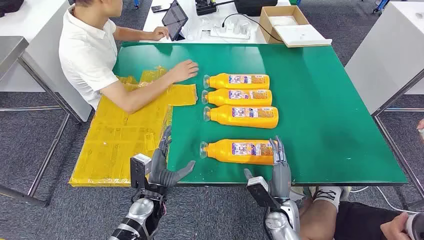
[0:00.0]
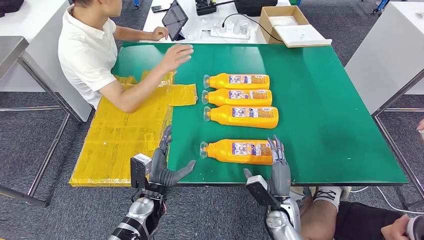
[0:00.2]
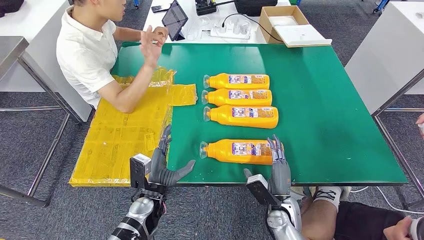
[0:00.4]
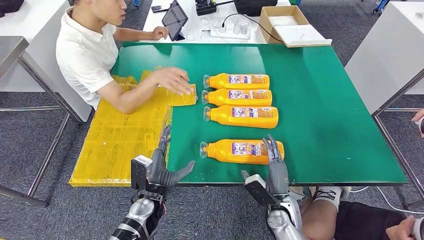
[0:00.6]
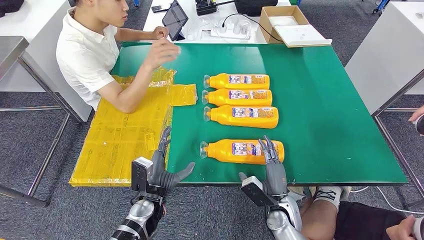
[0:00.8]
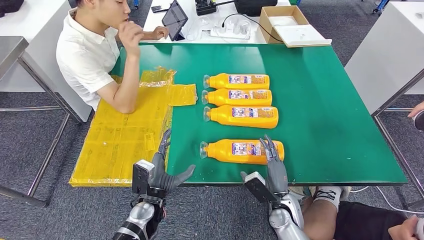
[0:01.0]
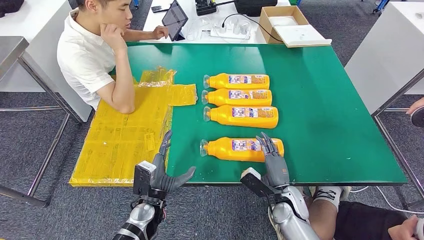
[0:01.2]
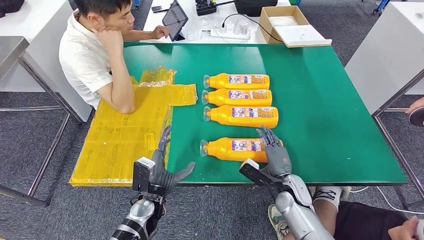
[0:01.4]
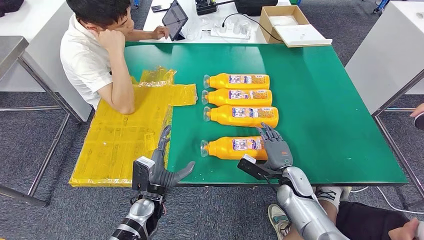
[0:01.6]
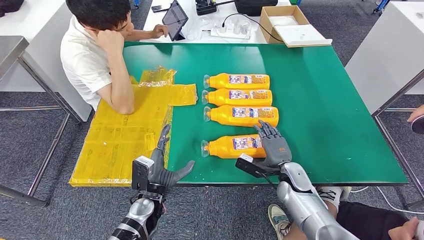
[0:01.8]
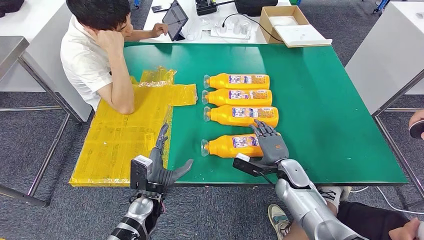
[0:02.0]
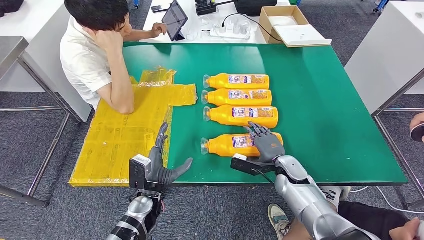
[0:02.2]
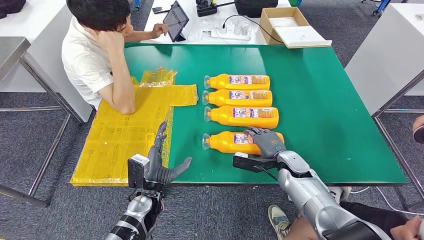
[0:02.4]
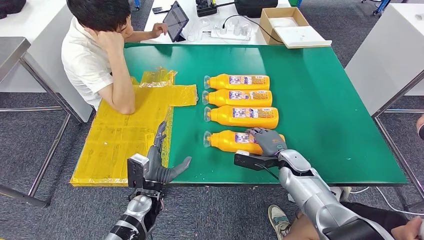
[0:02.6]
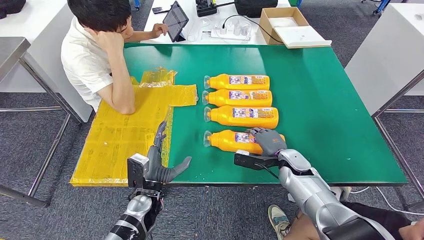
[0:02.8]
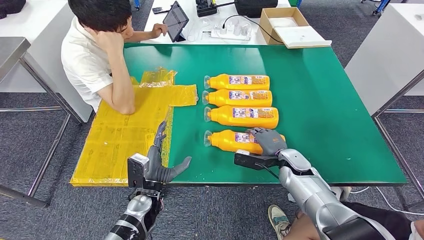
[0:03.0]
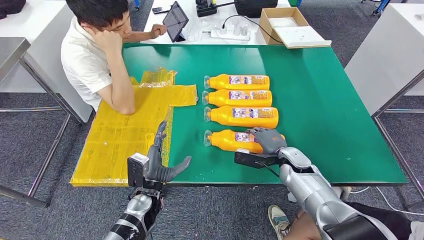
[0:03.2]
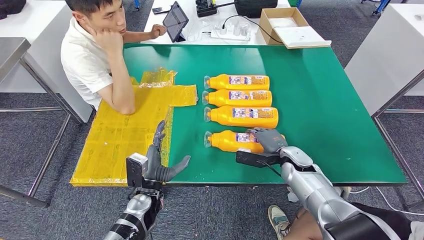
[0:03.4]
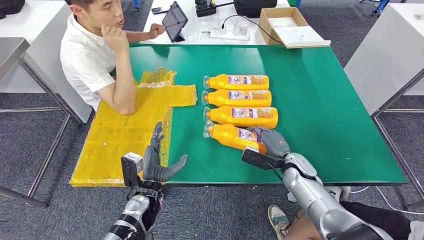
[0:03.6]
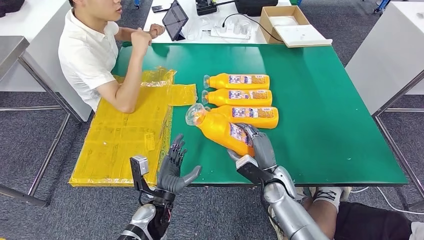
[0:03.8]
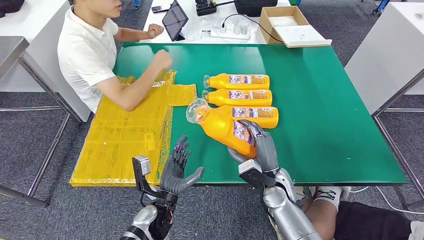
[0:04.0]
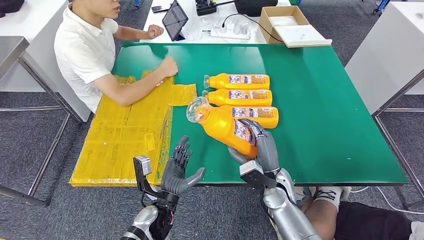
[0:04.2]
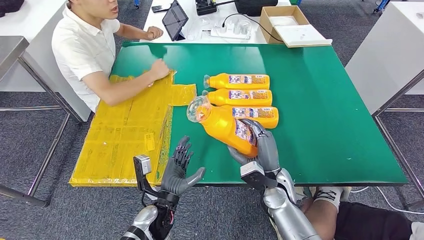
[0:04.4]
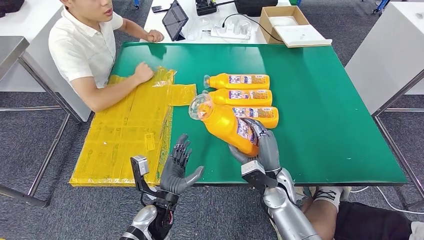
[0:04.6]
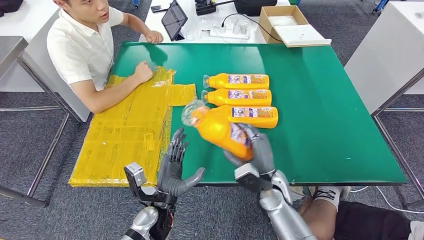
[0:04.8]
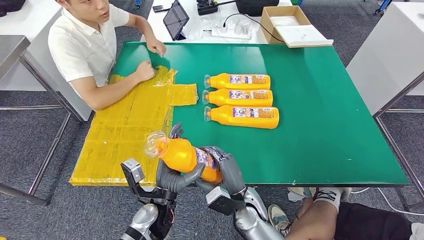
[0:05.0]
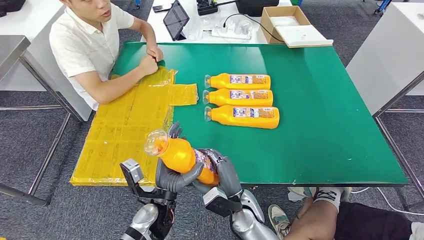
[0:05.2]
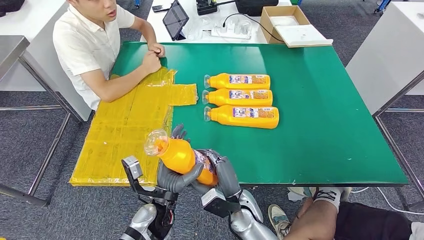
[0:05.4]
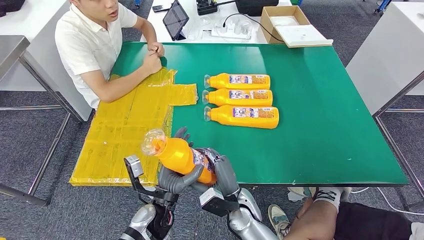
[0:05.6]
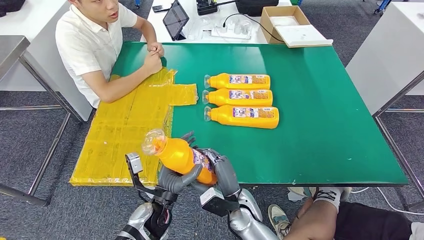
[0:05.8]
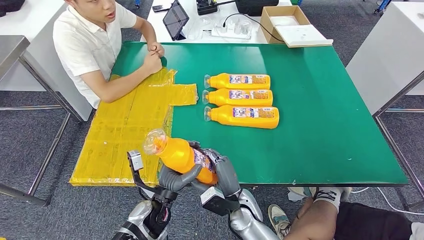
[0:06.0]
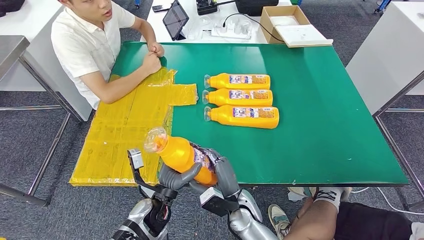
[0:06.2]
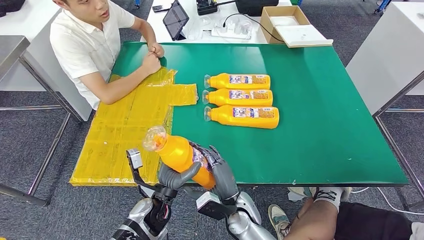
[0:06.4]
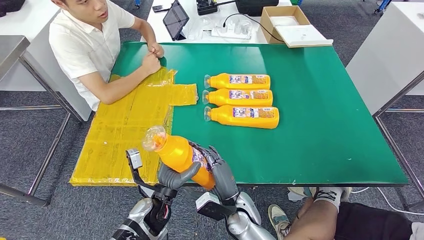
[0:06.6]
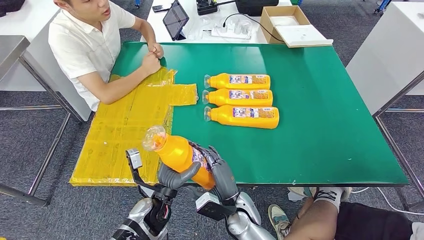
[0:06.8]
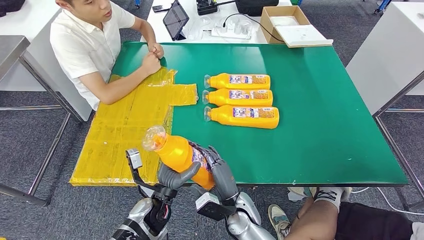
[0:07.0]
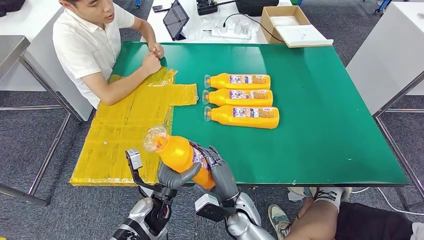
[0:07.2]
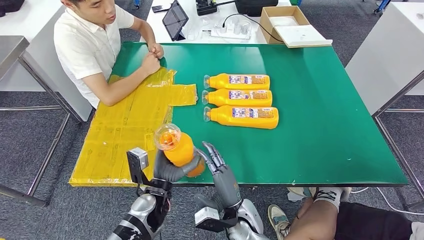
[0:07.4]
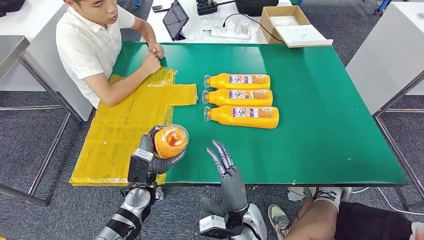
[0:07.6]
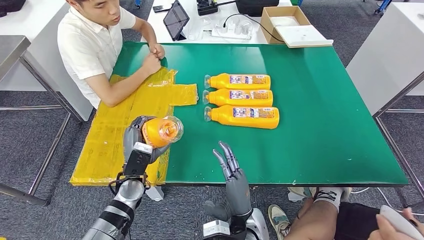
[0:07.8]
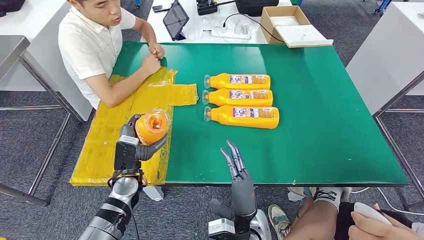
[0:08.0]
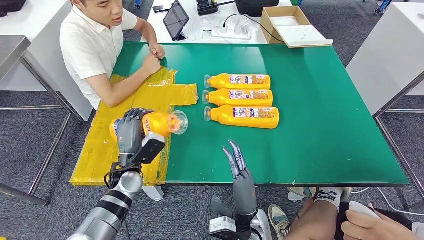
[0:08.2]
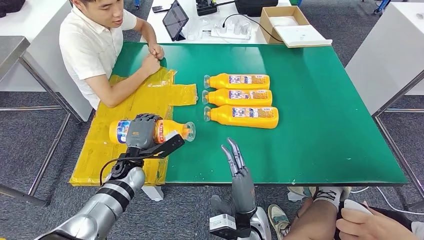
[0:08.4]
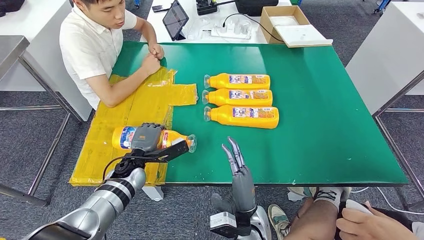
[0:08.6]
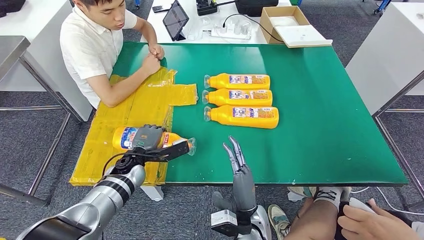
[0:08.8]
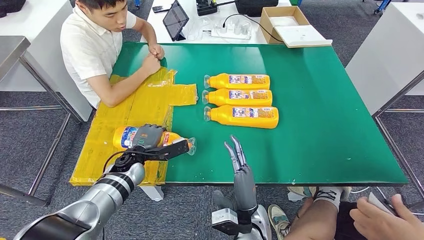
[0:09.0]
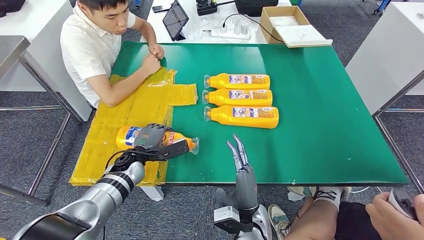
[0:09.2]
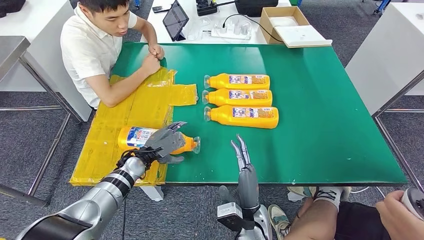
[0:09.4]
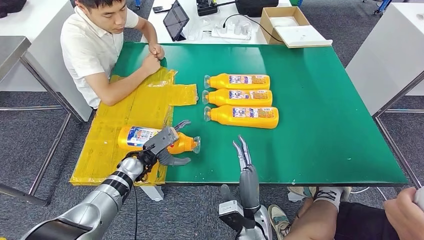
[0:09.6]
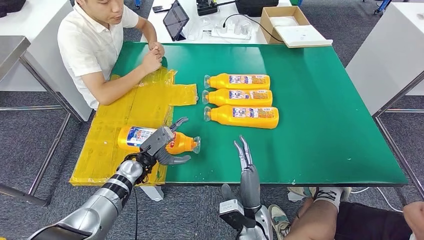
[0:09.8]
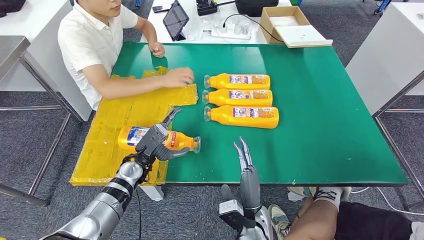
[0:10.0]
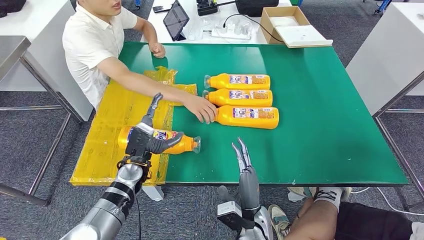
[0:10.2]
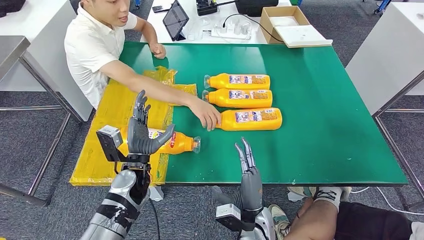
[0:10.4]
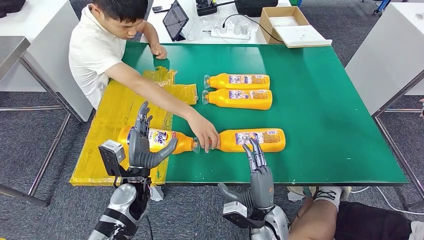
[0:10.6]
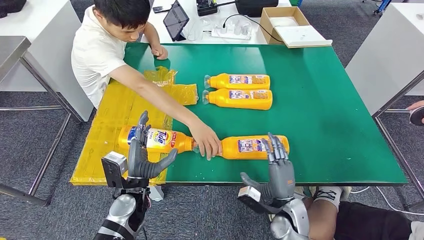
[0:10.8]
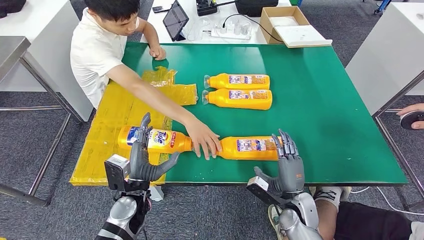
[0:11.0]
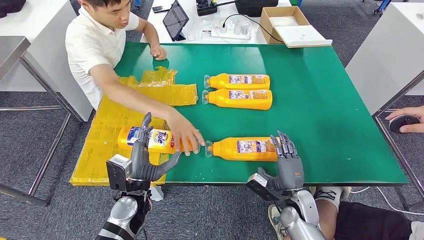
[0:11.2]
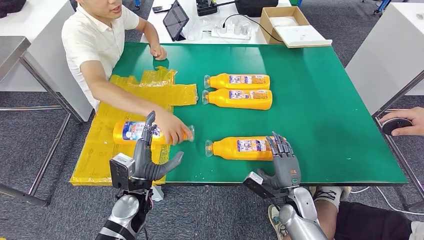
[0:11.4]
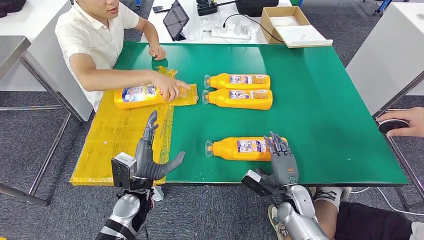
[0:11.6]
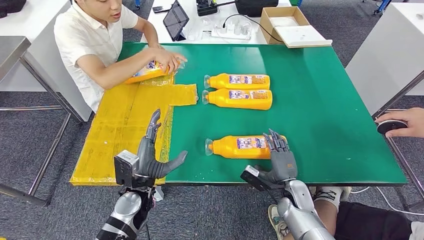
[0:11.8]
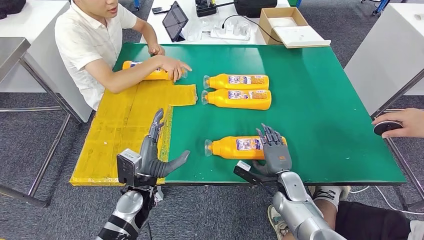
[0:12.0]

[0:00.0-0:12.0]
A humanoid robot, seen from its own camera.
Step, 0:00.0 to 0:05.8: Take the fast-moving consumer goods bottle from the table.
Step, 0:06.0 to 0:10.2: Flip the fast-moving consumer goods bottle to the front side.
0:01.6 to 0:03.0: The right hand ends up about 5 cm from where it was.
0:04.4 to 0:06.0: The right hand moves to the left, about 10 cm.
0:06.0 to 0:07.6: The left hand travels to the left by some 5 cm.
0:07.6 to 0:09.0: The left hand is displaced forward by about 10 cm.
0:09.0 to 0:10.4: The left hand heads backward, covering about 5 cm.

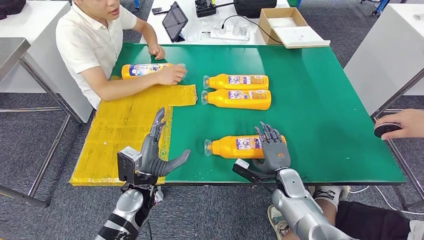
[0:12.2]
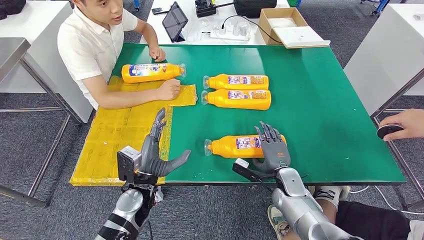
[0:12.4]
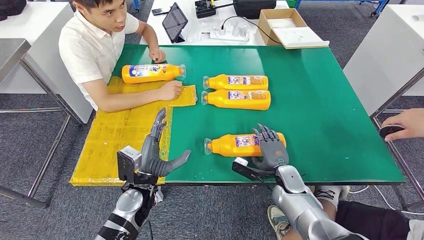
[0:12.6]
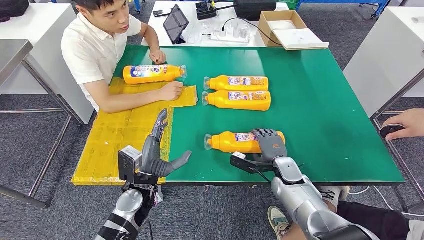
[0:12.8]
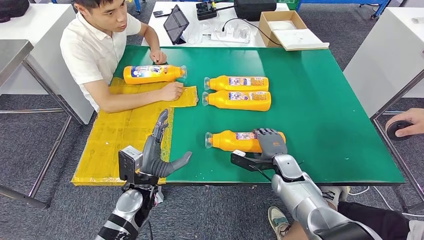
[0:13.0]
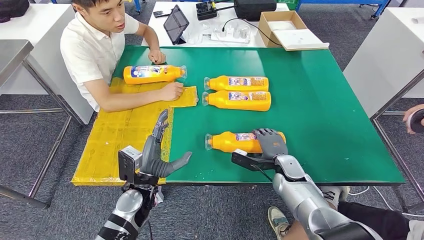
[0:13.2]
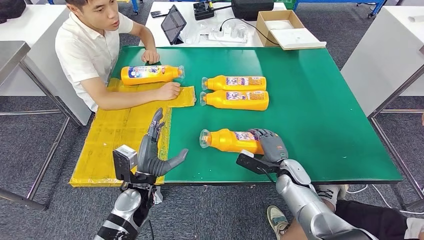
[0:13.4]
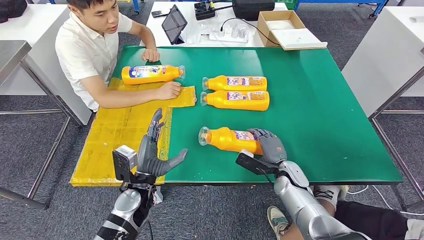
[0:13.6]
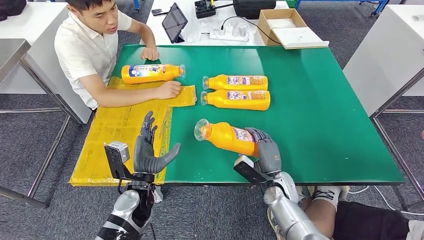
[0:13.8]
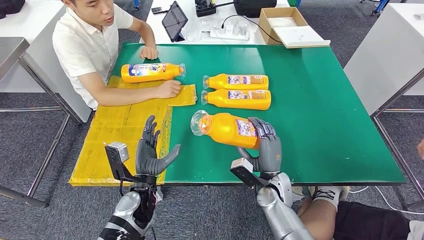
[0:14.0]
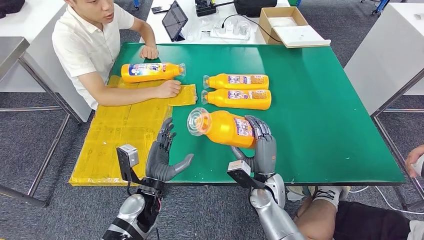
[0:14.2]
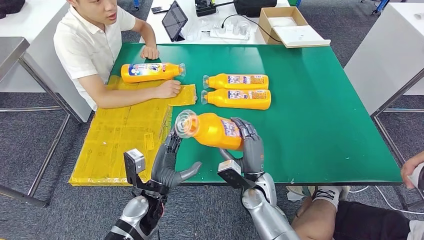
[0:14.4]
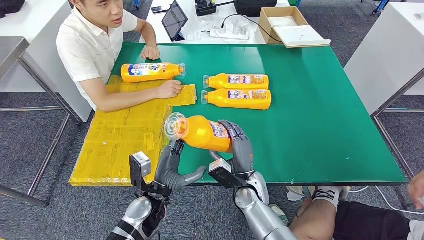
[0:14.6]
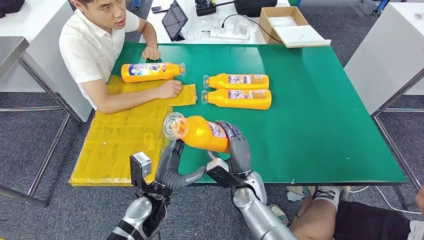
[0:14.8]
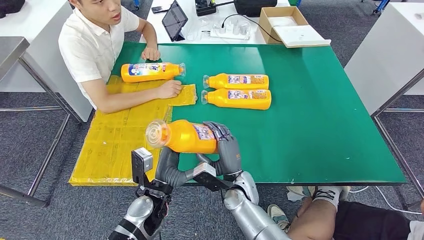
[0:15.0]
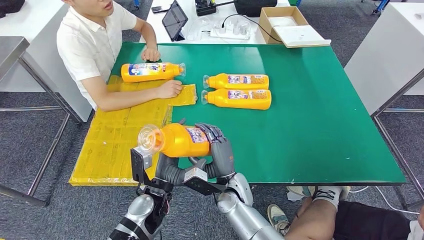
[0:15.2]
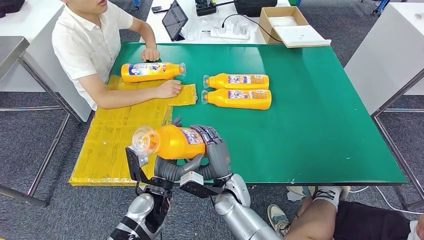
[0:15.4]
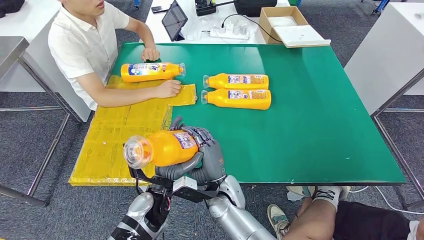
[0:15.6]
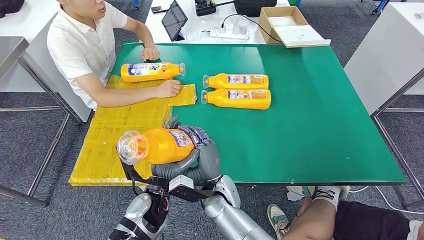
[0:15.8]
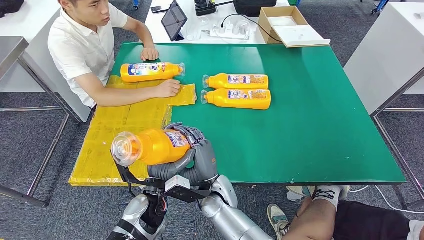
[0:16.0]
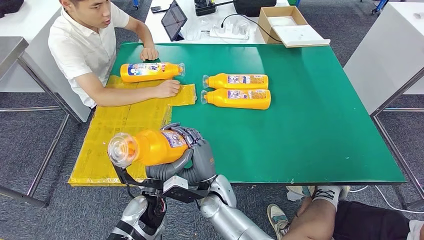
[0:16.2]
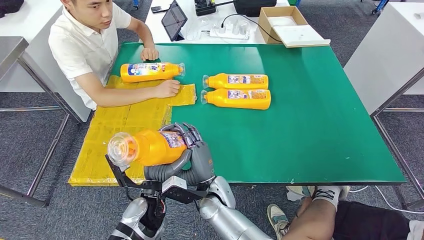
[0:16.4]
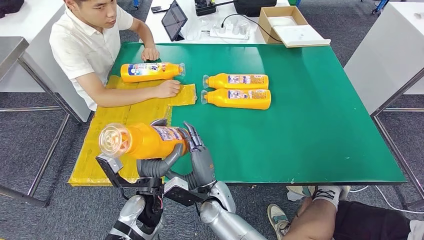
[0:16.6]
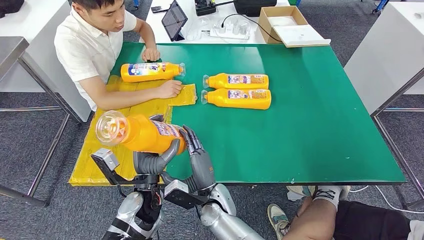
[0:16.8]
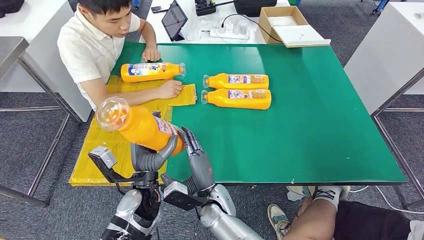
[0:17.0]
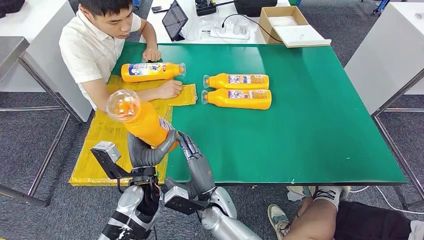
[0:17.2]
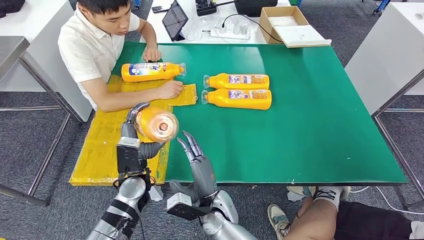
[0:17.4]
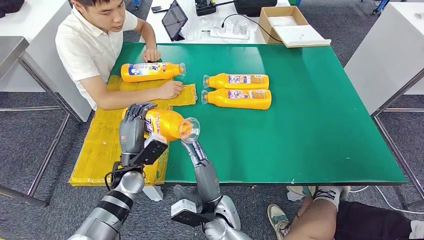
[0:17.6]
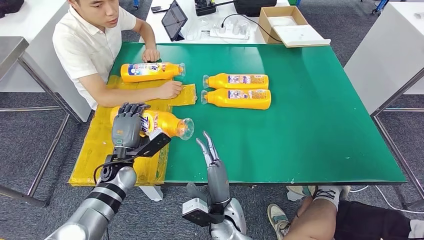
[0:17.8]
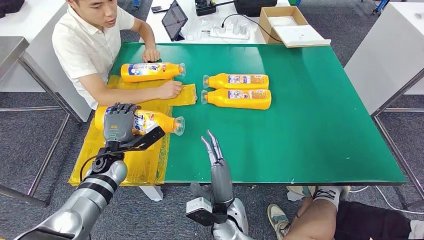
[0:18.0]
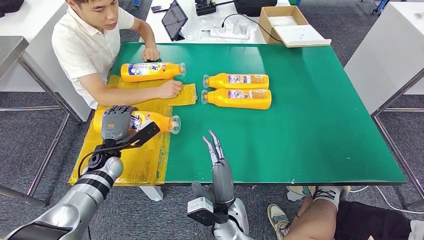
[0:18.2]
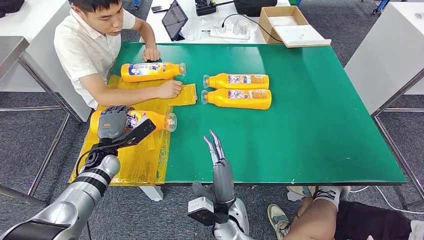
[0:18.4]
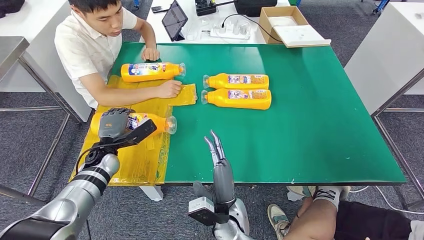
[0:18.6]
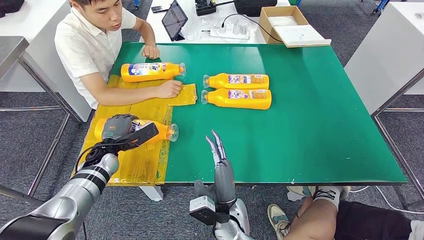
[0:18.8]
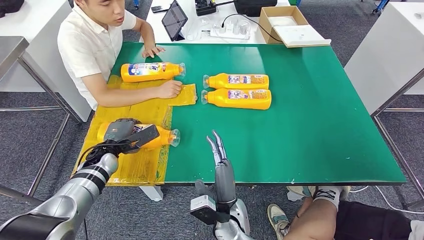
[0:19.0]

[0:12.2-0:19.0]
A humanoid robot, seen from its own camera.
Step, 0:12.2 to 0:14.4: Pick up the fast-moving consumer goods bottle from the table.
0:15.0 to 0:16.2: The right hand heads to the left, covering about 5 cm.
0:16.2 to 0:17.6: The left hand travels to the left and forward by about 10 cm, while the right hand shifts by roughly 5 cm.
0:17.6 to 0:19.0: The left hand goes roughly 10 cm to the left and forward.
